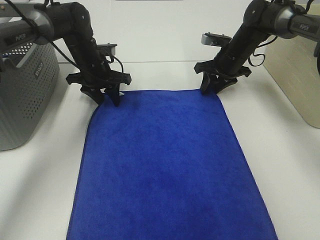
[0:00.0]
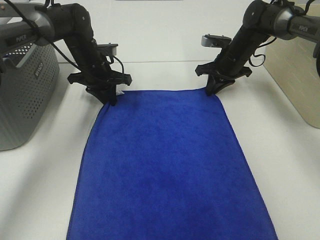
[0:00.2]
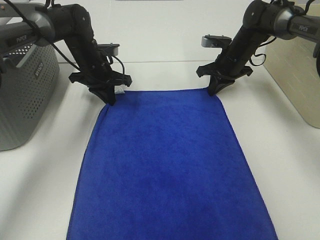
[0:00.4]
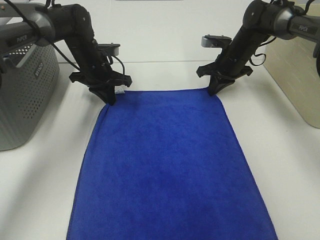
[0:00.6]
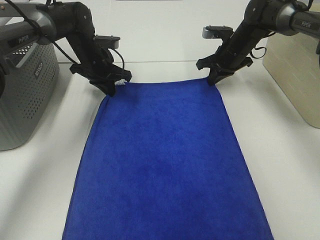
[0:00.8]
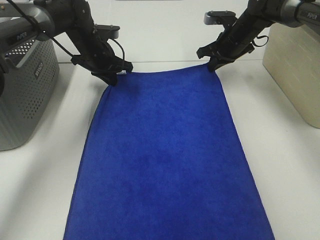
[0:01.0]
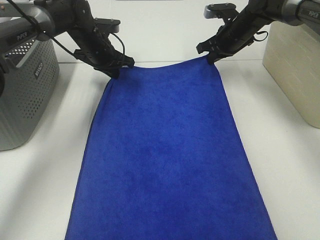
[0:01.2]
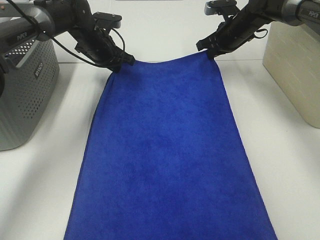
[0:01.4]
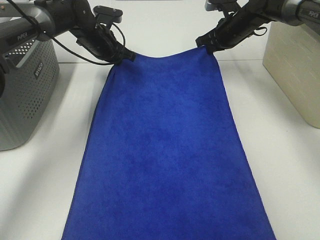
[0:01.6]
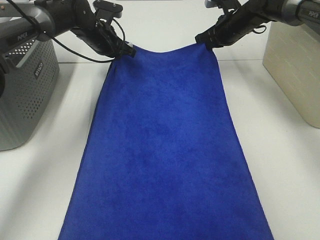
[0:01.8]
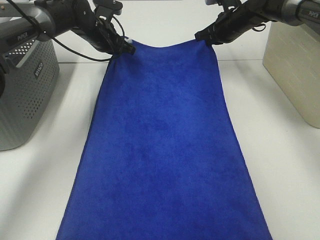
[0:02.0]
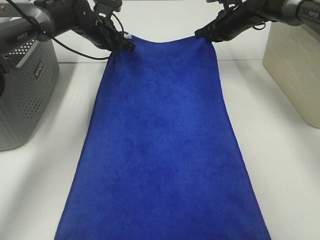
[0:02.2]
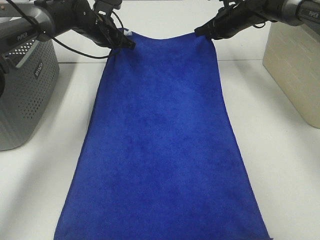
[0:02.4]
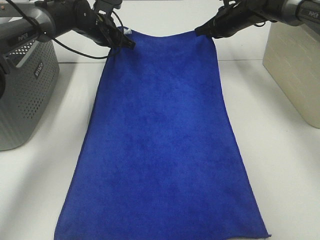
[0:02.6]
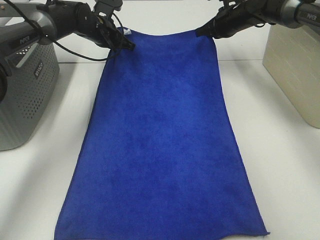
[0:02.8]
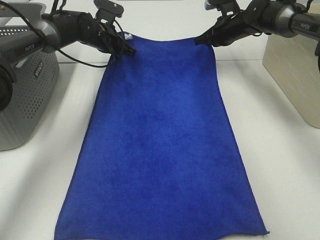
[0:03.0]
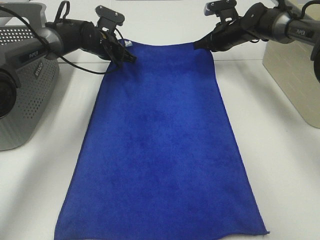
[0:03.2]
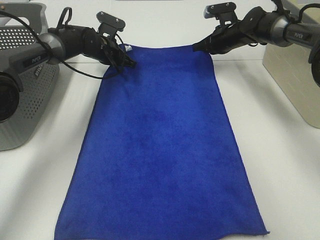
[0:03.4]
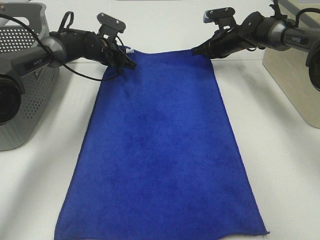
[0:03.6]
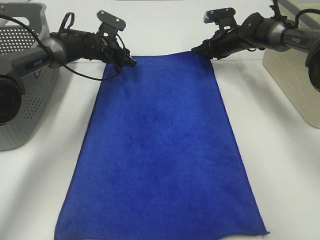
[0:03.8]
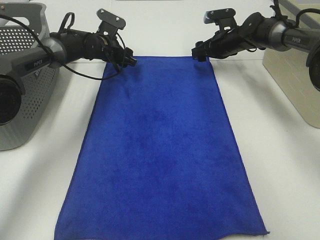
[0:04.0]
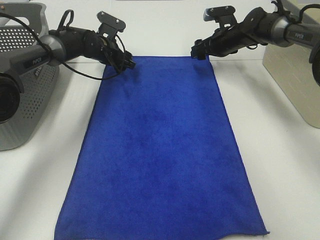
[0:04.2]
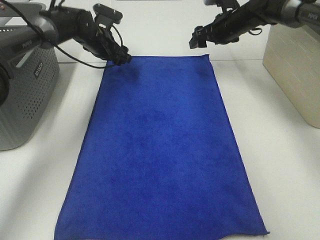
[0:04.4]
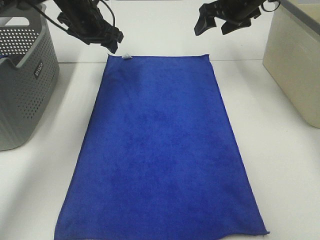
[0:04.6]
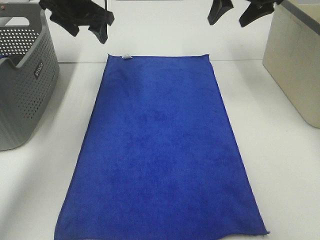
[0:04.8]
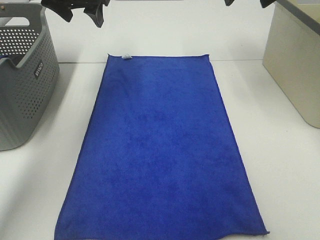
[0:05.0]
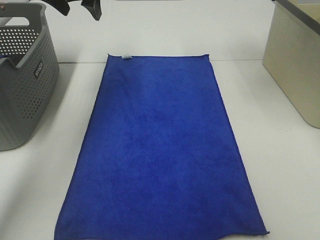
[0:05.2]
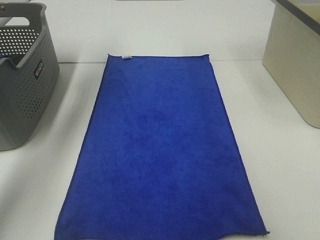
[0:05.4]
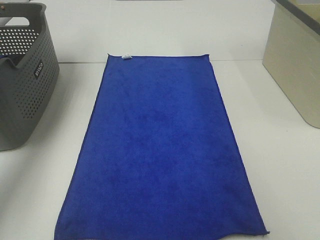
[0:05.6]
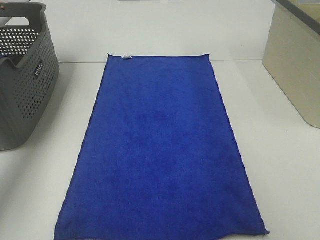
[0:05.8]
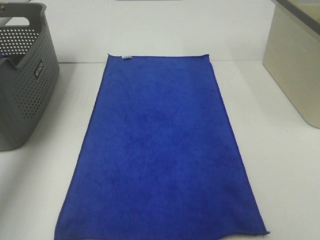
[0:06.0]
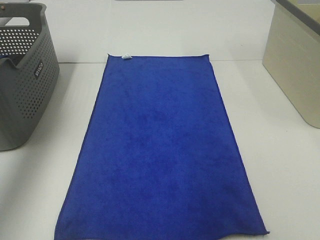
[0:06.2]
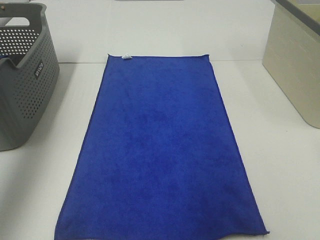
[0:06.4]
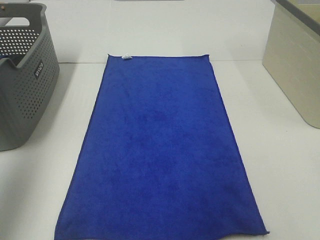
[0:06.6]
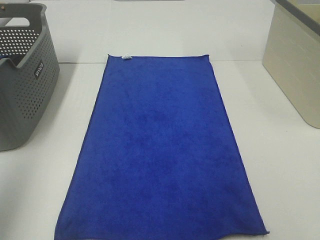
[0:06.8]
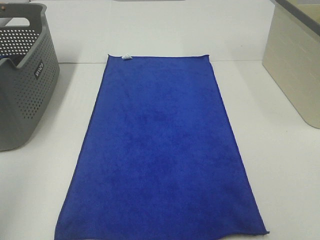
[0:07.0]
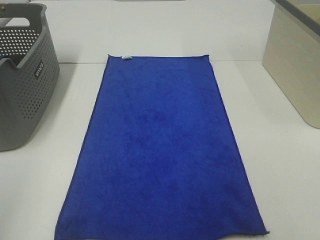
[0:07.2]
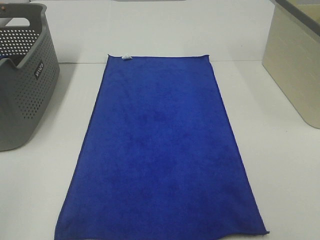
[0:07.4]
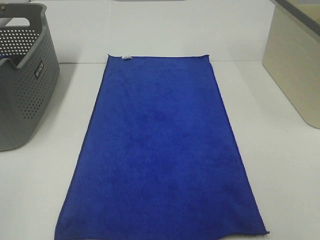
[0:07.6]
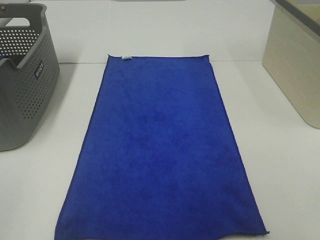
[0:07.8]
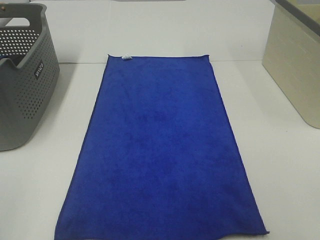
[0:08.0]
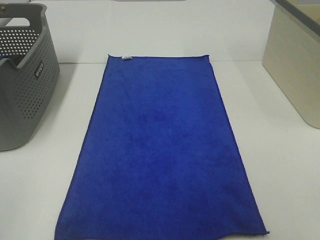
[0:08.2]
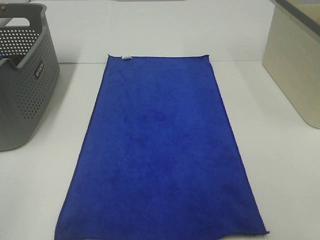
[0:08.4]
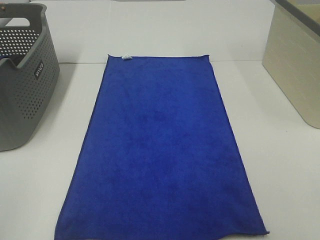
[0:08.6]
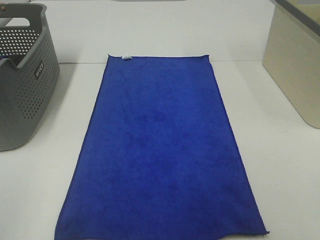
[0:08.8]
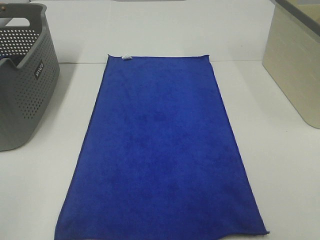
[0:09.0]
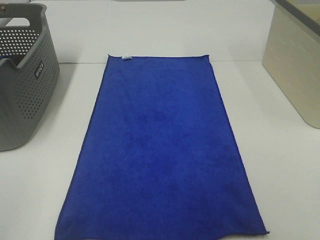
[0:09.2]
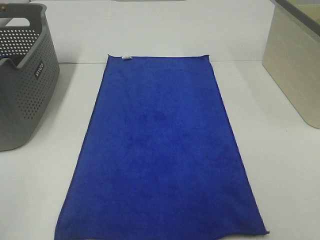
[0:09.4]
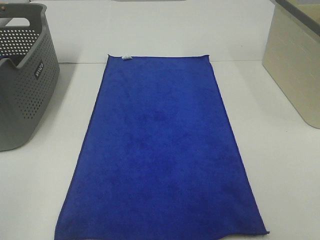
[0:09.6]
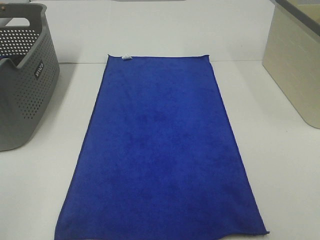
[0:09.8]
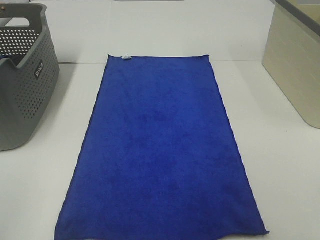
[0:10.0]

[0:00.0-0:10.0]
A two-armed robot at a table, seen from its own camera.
Task of the whole recording: Remove the towel and place it.
0:00.0 to 0:01.4: The right gripper moves some 5 cm, and closes; the left gripper changes place by roughly 5 cm, and closes its fingers.
0:02.8 to 0:04.2: The right gripper opens, while the left gripper opens.
0:04.2 to 0:05.8: The left gripper goes some 35 cm upward and to the left, while the right gripper travels upward and backward by approximately 30 cm.
0:05.8 to 0:07.2: The left gripper travels backward by about 40 cm.
0:08.6 to 0:10.0: Both grippers stay about where they are.

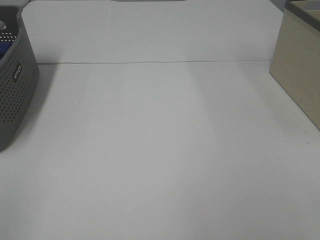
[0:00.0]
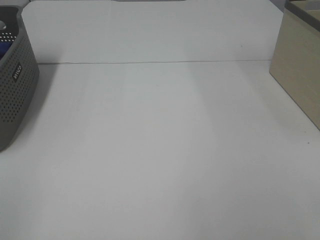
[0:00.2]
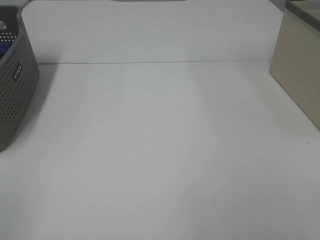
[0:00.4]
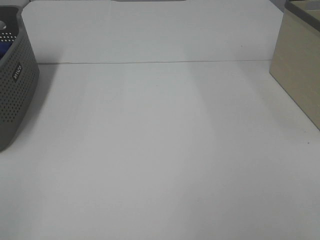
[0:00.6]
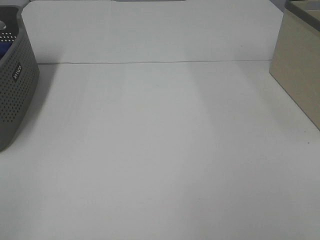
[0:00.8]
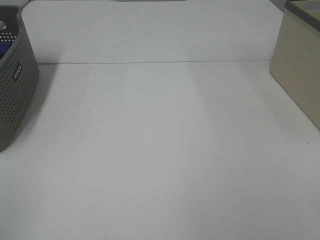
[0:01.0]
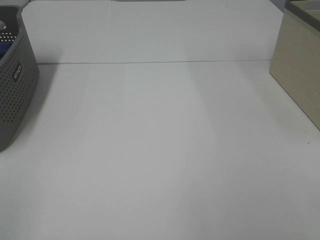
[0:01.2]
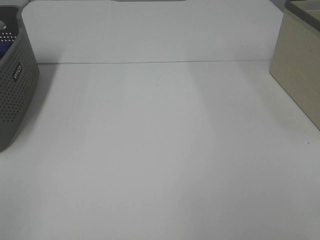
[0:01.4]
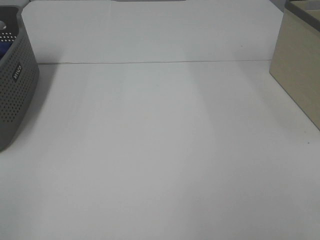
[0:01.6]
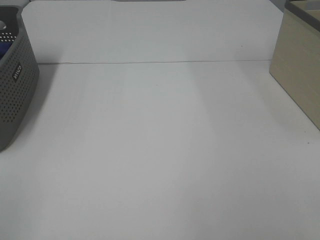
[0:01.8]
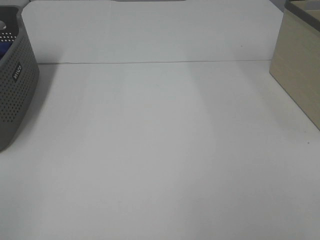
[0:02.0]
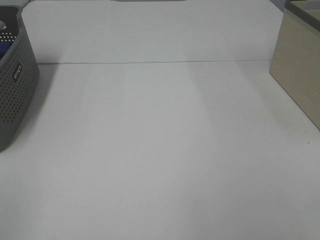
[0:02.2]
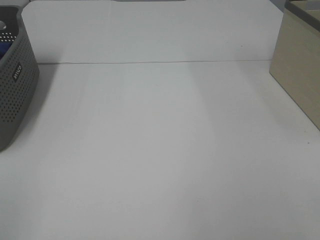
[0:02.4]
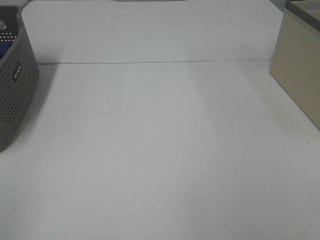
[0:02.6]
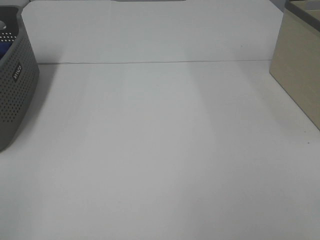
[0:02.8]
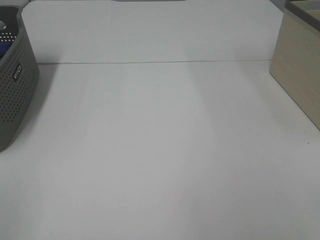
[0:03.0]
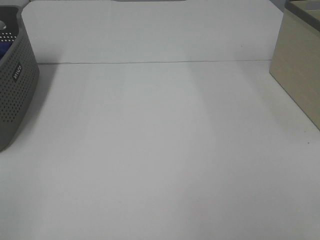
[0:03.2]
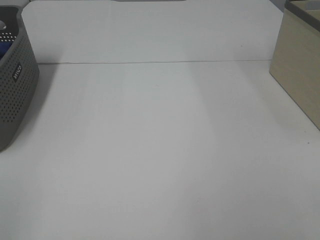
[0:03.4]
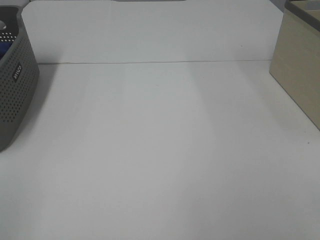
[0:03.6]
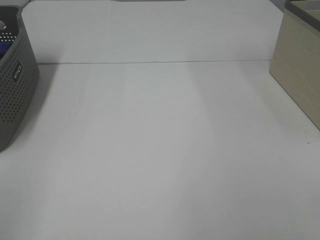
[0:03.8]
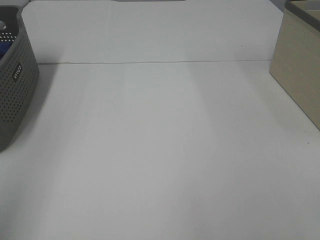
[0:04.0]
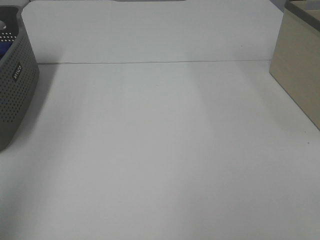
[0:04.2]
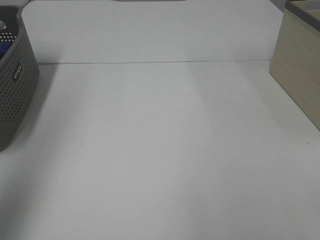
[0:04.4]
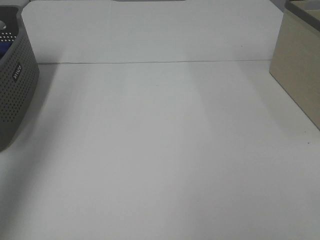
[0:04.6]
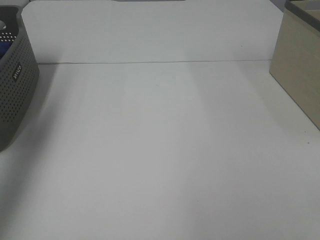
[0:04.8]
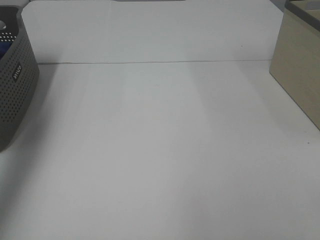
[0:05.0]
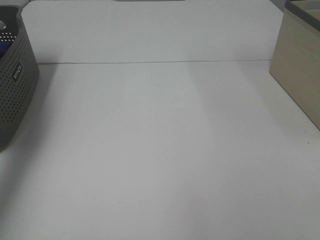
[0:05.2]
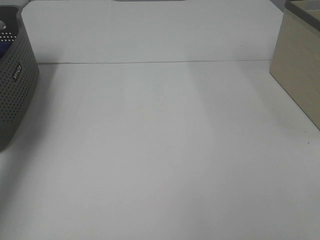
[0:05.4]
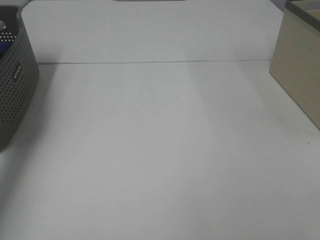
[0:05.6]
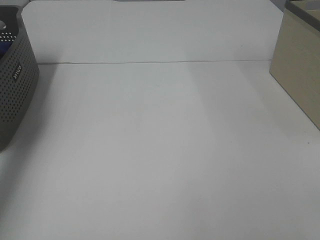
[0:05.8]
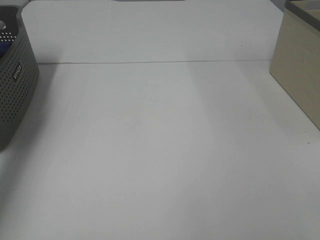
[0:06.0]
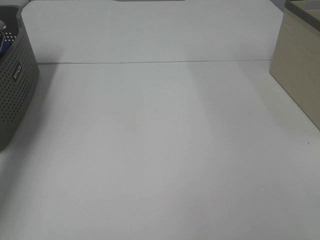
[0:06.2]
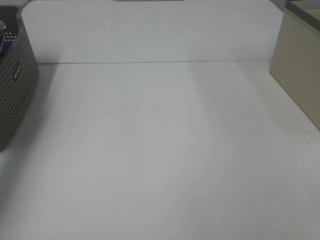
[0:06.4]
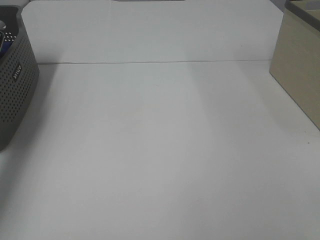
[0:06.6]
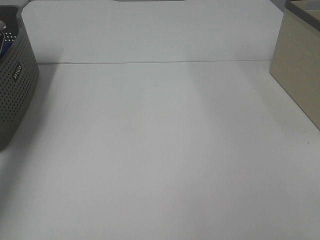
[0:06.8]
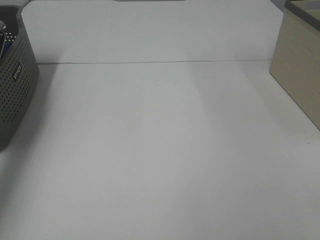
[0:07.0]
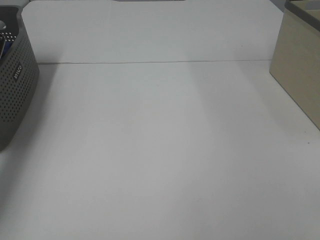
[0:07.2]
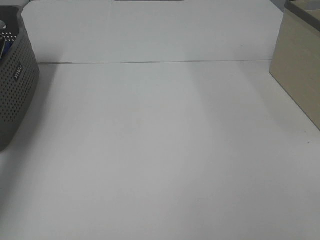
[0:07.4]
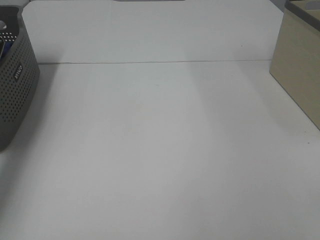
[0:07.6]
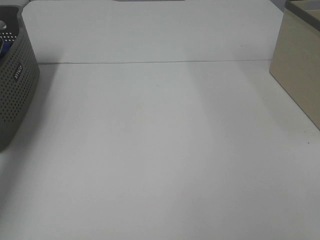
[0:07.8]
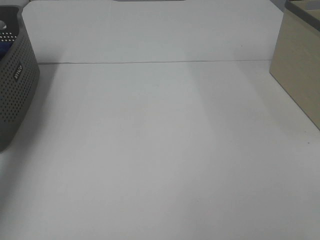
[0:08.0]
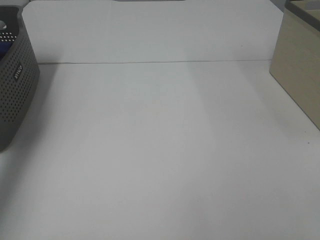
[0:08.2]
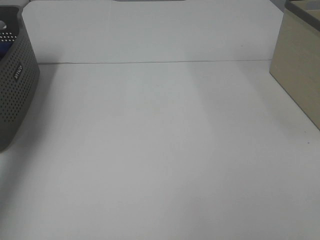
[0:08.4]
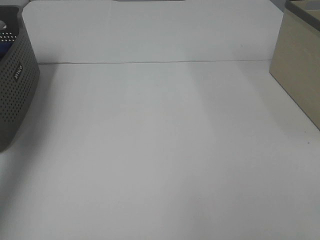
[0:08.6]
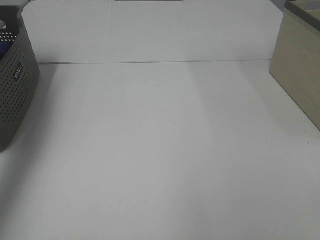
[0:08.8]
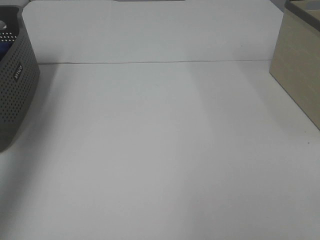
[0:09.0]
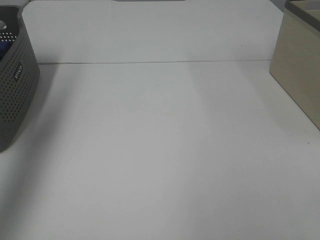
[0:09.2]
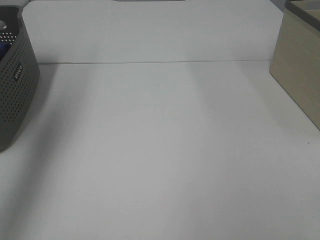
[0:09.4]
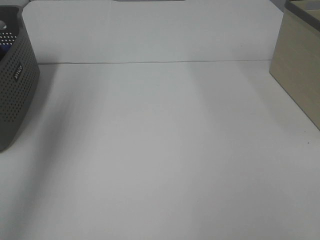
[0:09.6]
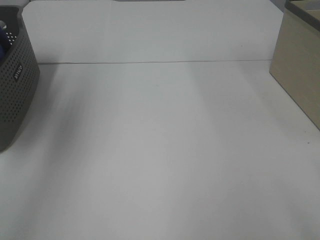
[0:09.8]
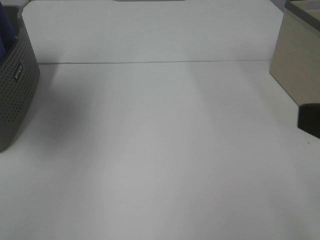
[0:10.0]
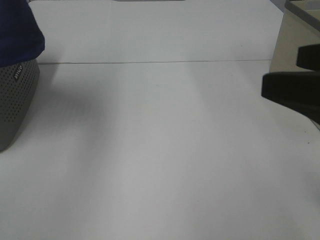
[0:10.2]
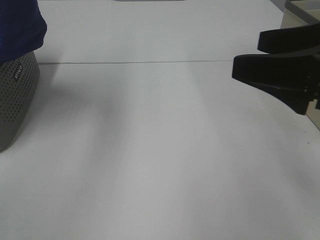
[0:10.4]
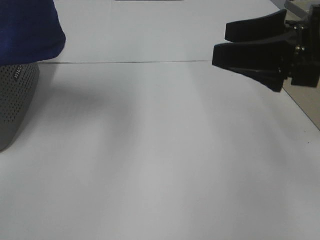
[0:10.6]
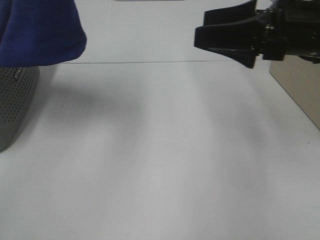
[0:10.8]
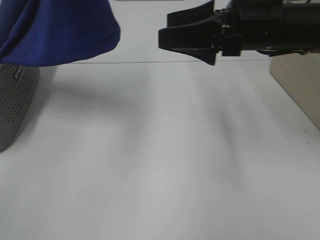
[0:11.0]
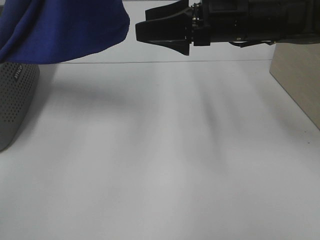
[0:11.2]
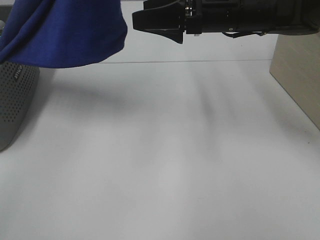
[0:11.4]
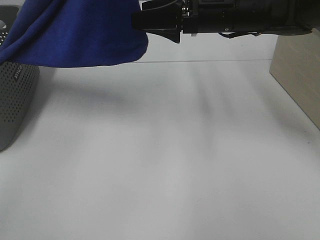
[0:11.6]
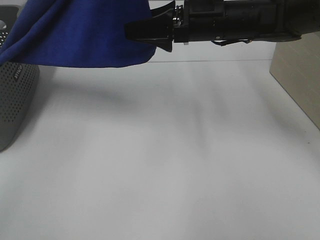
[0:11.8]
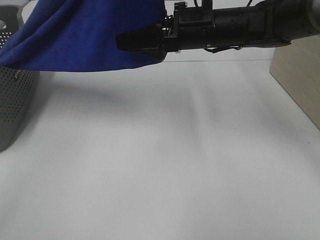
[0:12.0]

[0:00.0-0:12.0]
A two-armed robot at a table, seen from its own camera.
Task of the whole recording: Remove the towel and place it.
0:00.0 to 0:03.0: The two grippers keep their place.
0:03.0 to 0:04.4: The left gripper goes roughly 25 cm forward and upward.
0:04.4 to 0:06.0: The left gripper is displaced forward and downward by approximately 35 cm.
0:07.6 to 0:09.0: The left gripper shifts roughly 25 cm upward and backward.
0:09.0 to 0:10.4: The right gripper heads forward, covering some 20 cm. The left gripper moves to the right, approximately 20 cm.
0:10.4 to 0:12.0: The left gripper shifts about 10 cm to the right, while the right gripper shifts about 25 cm forward and to the left.
